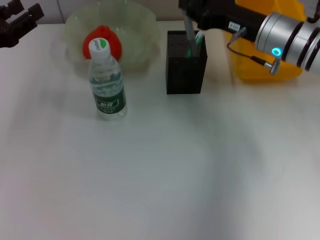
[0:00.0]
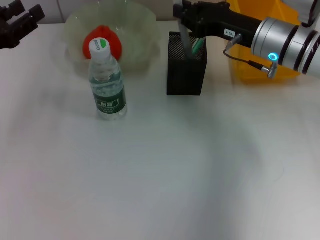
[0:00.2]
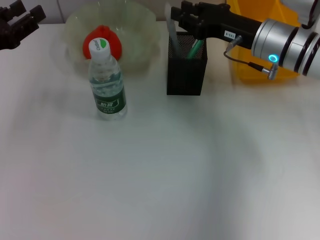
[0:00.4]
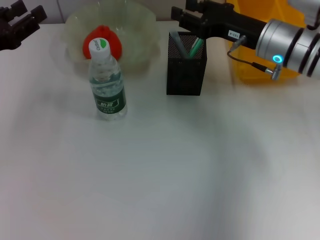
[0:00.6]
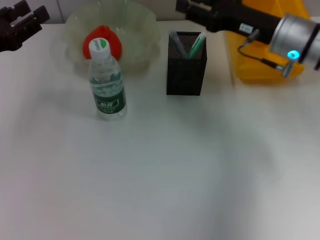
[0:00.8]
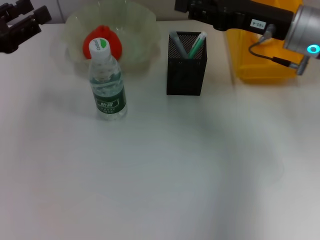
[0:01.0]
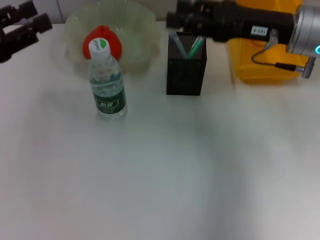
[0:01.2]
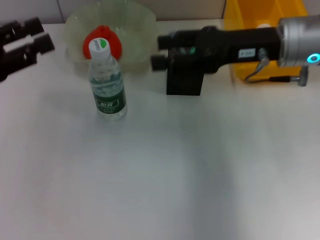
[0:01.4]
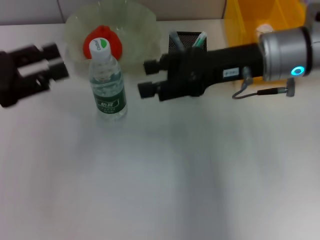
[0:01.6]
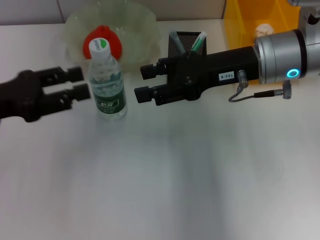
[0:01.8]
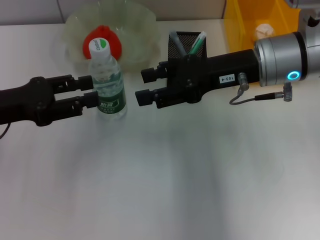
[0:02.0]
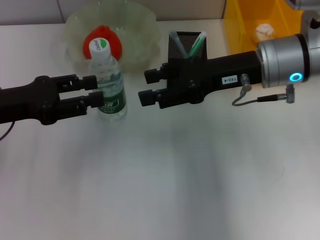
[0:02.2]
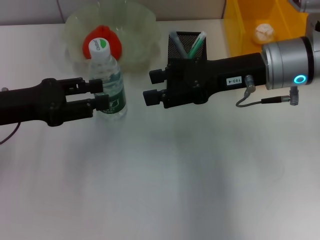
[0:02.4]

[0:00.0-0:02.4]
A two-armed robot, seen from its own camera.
0:00.0 to 0:01.2: The right gripper goes roughly 5 cm upward, and opens its fingers.
0:01.2 to 0:02.4: The left gripper shifts by approximately 5 cm.

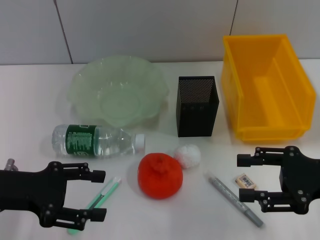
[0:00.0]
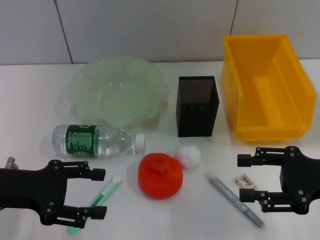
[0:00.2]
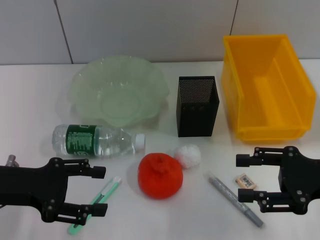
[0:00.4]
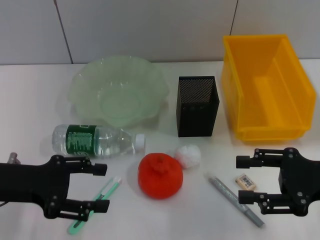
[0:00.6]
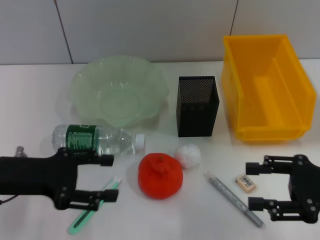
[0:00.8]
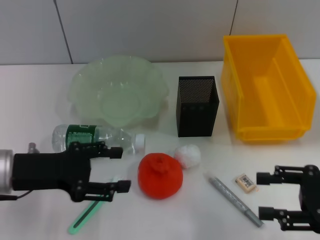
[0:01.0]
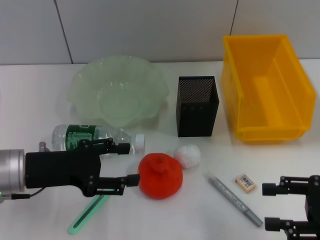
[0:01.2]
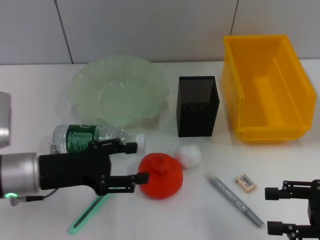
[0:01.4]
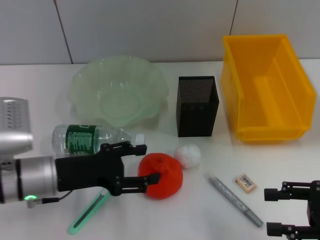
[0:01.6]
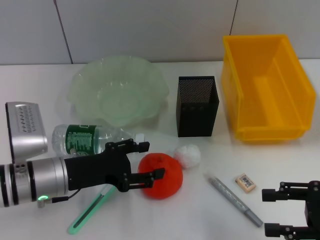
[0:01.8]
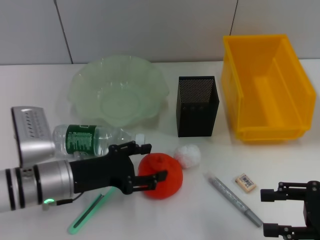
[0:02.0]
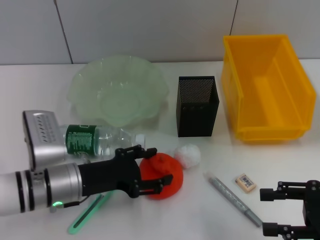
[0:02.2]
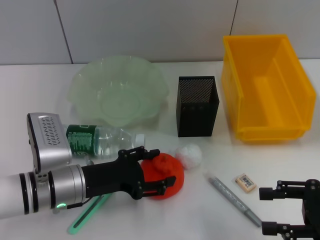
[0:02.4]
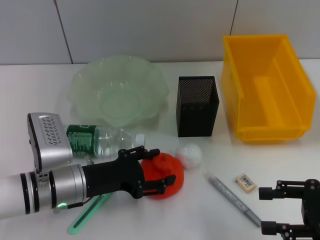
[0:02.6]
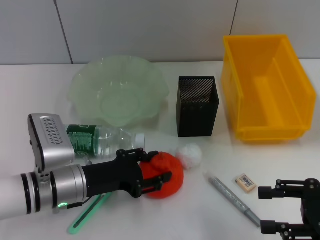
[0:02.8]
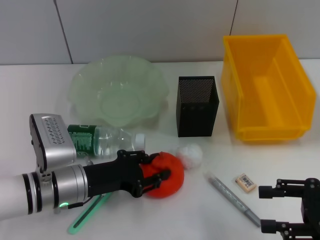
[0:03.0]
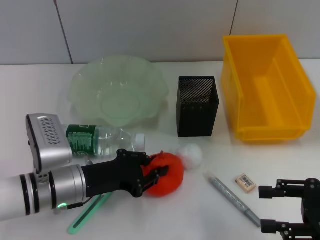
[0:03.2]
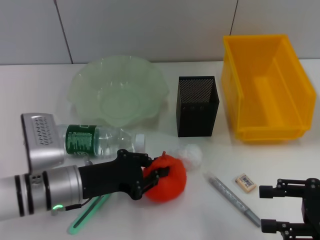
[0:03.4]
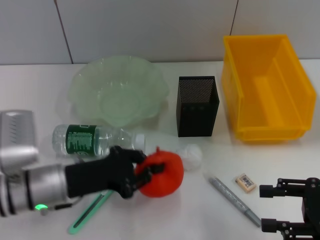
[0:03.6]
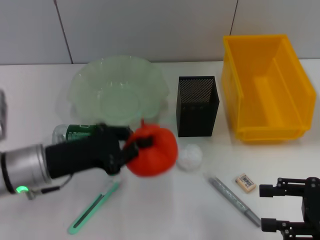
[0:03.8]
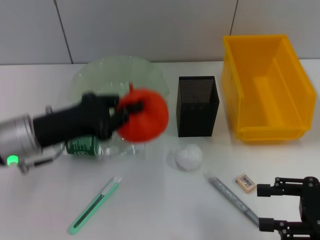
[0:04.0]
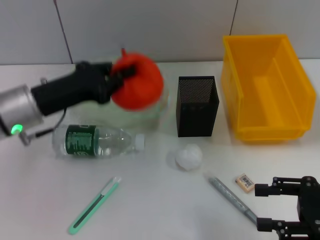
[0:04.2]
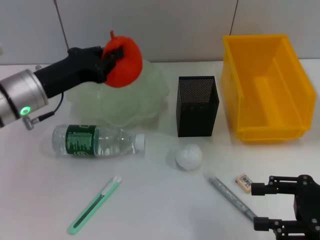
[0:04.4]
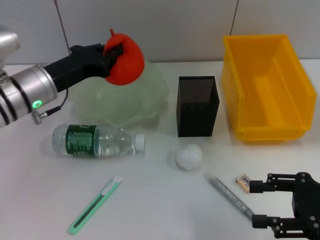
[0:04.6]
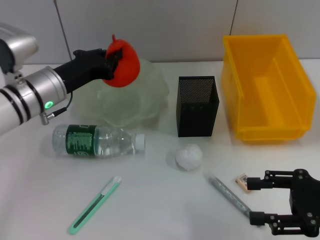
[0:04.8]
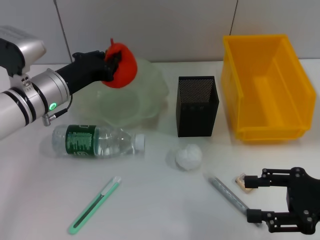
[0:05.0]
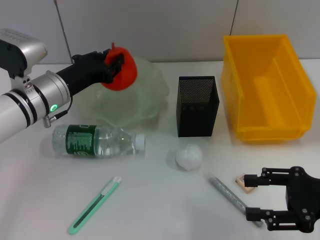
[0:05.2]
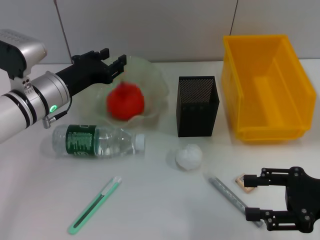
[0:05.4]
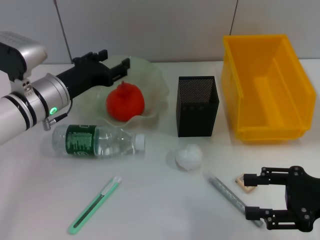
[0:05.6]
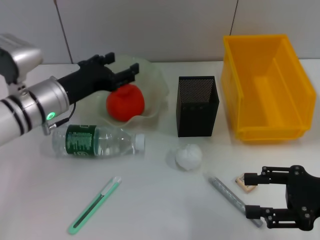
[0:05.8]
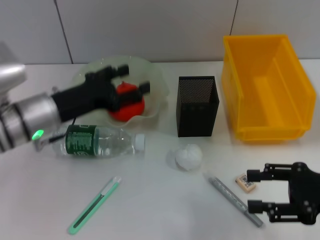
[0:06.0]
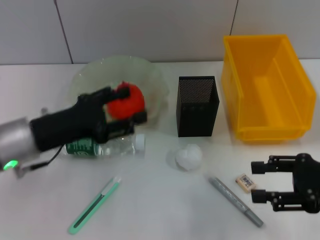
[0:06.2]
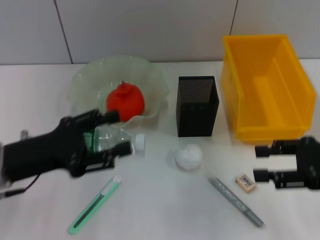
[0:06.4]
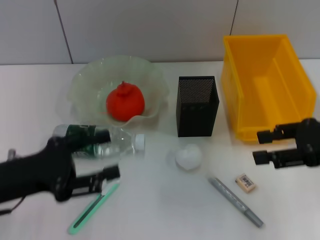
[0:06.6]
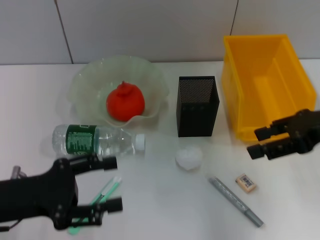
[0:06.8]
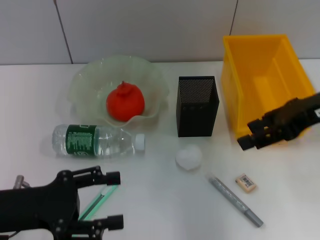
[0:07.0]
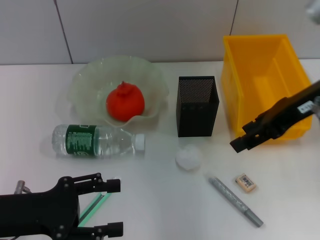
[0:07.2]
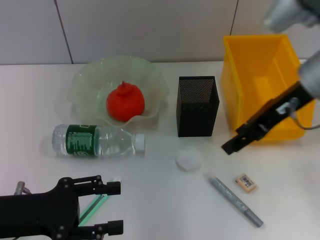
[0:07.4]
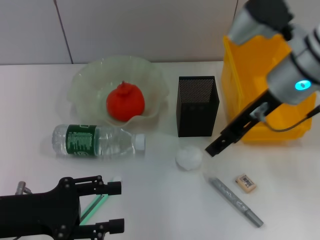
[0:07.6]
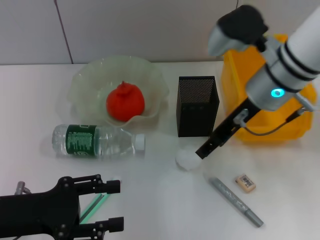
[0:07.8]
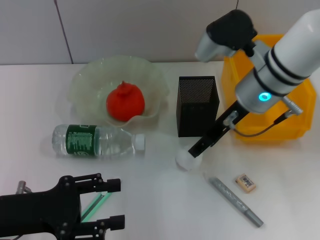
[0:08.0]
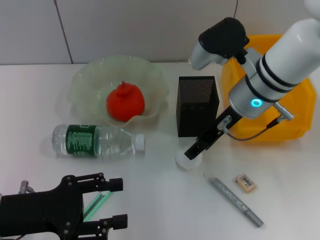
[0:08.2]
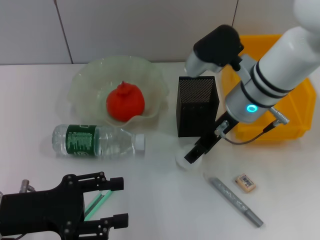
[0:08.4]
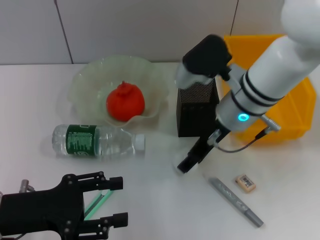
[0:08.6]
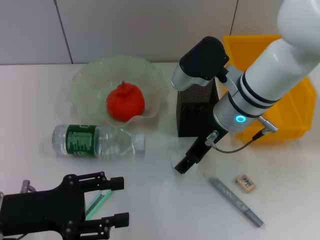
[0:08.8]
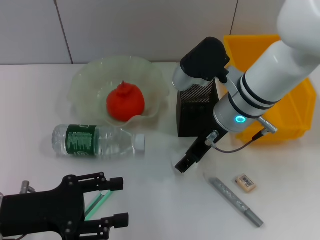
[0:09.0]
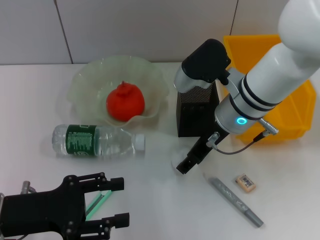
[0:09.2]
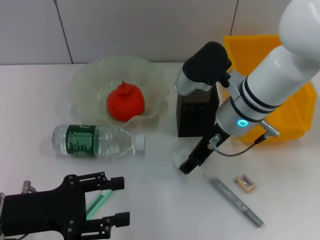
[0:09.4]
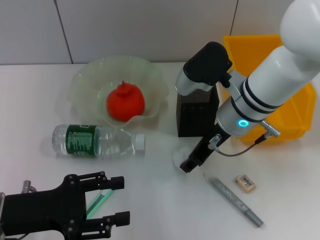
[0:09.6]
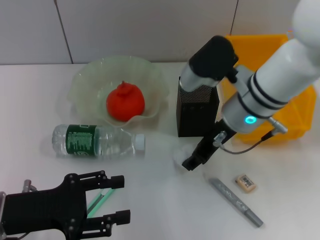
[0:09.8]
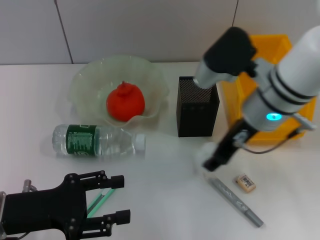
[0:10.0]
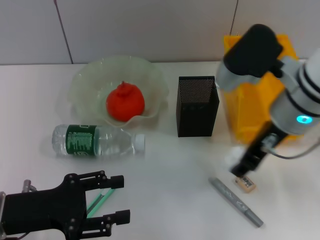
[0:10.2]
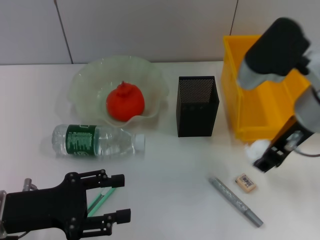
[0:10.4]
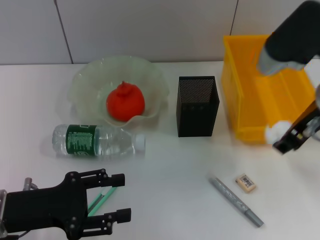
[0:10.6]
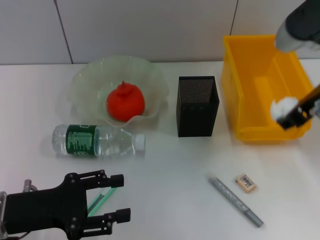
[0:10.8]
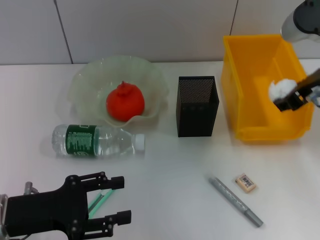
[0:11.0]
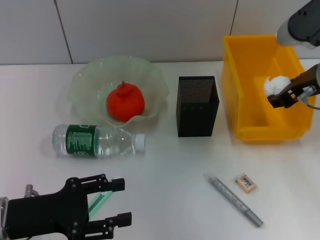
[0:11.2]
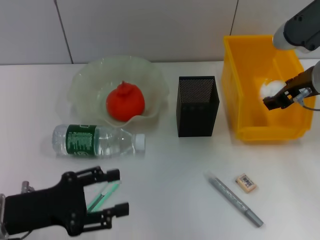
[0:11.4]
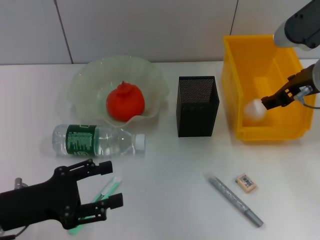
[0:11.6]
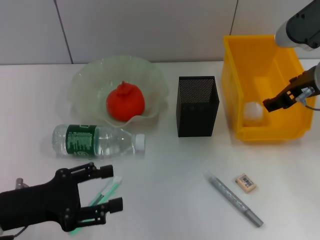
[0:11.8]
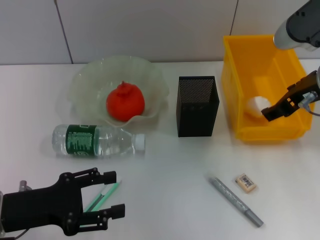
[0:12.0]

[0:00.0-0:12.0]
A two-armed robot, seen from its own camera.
Step, 0:00.0 to 0:03.0: Grab the orange with the left hand.
Step, 0:03.2 to 0:05.4: Place the orange into the fruit bowl with the left hand.
Step, 0:05.6 to 0:08.8: Grab the paper ball with the right hand.
Step, 0:09.0 to 0:11.6: Place the paper ball into the trash can with the right hand.
0:00.0 to 0:01.6: The left gripper shifts some 5 cm to the right. The right gripper moves about 5 cm.
0:01.6 to 0:03.0: The left gripper moves some 5 cm.
0:03.0 to 0:04.4: The left gripper is displaced upward and forward by approximately 10 cm, and closes up.
0:04.4 to 0:06.0: The left gripper opens up.
0:06.0 to 0:07.6: The left gripper moves backward and to the left, approximately 15 cm. The right gripper travels to the left, forward and upward by roughly 20 cm.
0:07.6 to 0:09.0: The right gripper heads downward and to the left, covering about 10 cm.
0:09.0 to 0:10.4: The right gripper is displaced upward, to the right and backward by about 10 cm, and closes its fingers.
0:10.4 to 0:12.0: The right gripper moves roughly 5 cm, and opens.

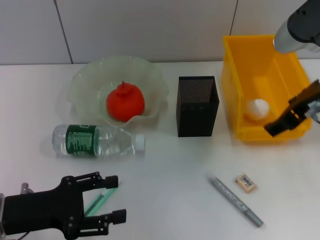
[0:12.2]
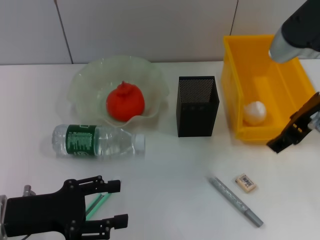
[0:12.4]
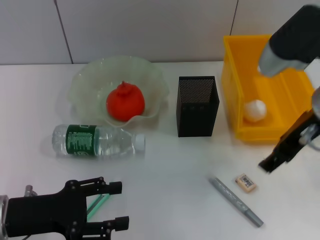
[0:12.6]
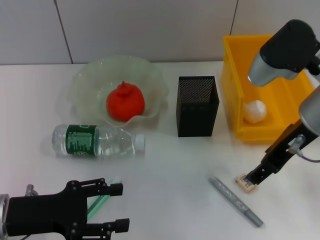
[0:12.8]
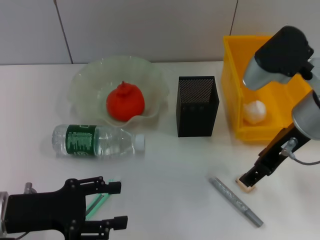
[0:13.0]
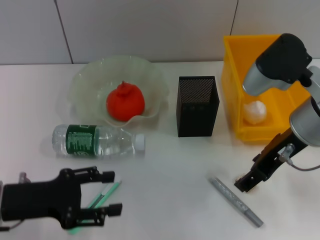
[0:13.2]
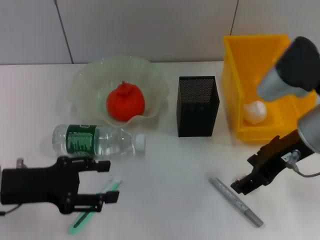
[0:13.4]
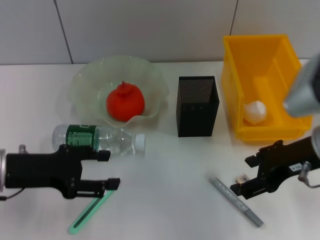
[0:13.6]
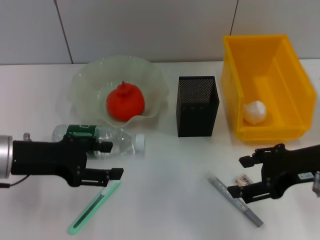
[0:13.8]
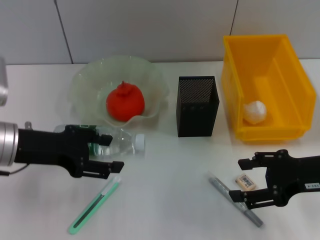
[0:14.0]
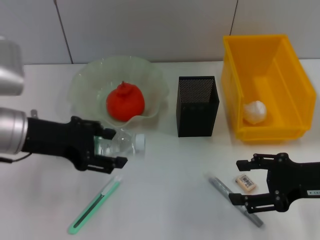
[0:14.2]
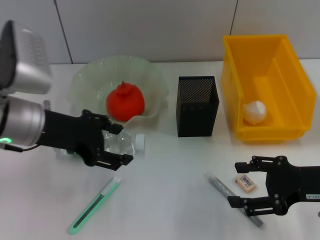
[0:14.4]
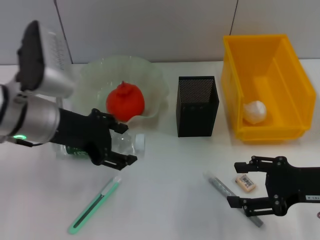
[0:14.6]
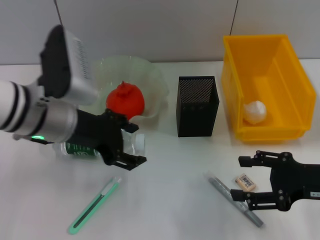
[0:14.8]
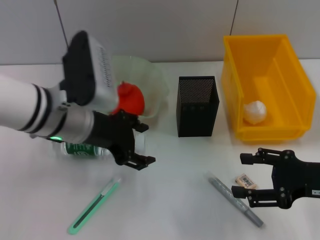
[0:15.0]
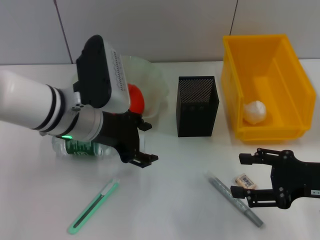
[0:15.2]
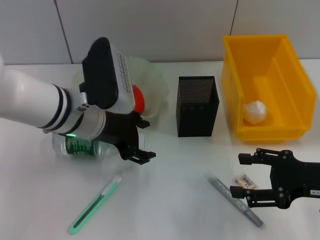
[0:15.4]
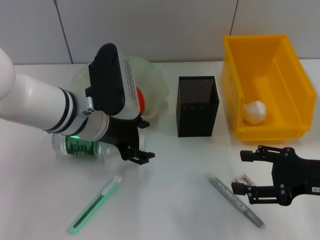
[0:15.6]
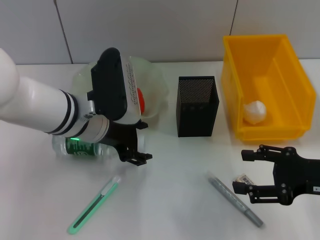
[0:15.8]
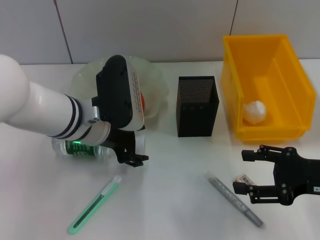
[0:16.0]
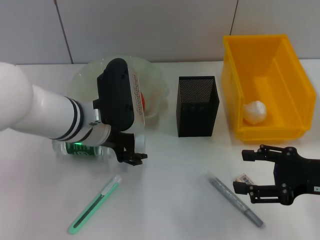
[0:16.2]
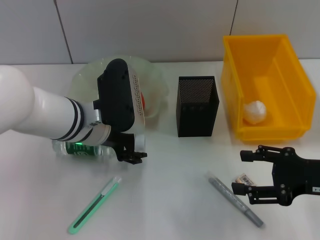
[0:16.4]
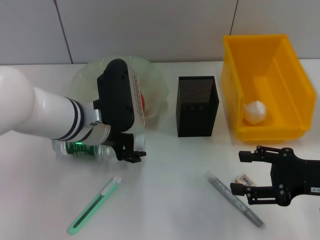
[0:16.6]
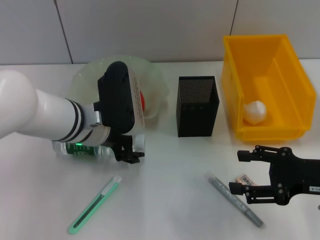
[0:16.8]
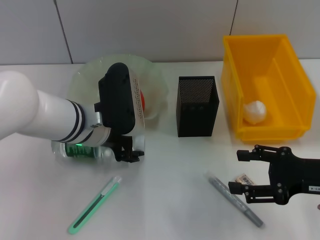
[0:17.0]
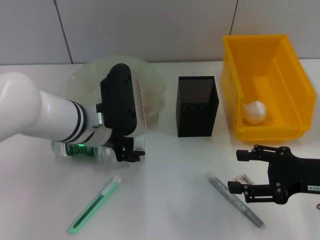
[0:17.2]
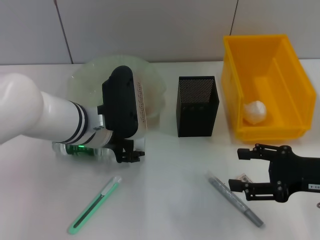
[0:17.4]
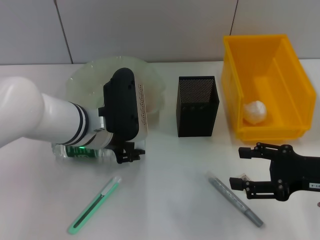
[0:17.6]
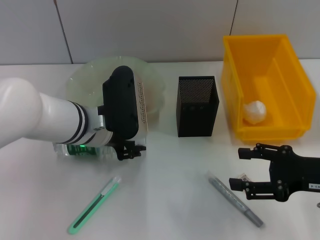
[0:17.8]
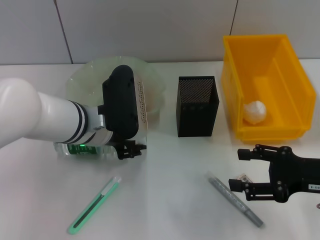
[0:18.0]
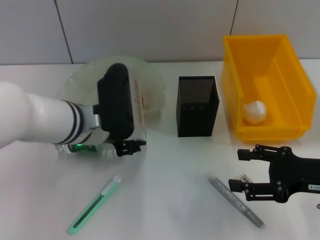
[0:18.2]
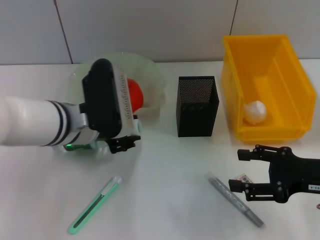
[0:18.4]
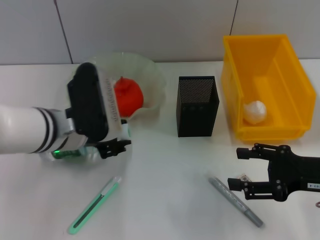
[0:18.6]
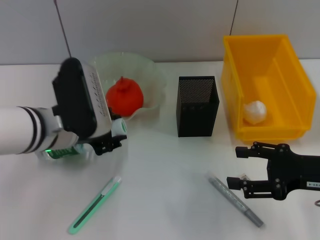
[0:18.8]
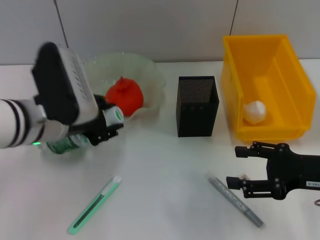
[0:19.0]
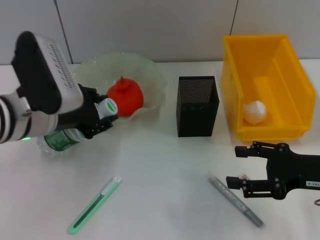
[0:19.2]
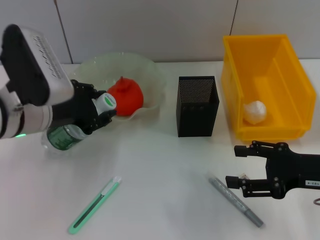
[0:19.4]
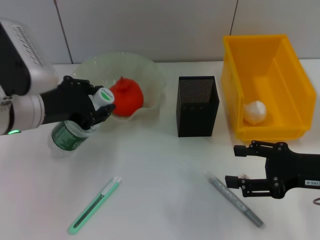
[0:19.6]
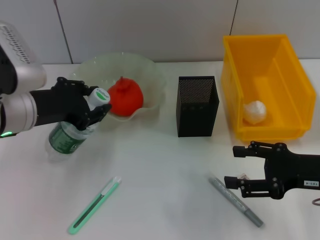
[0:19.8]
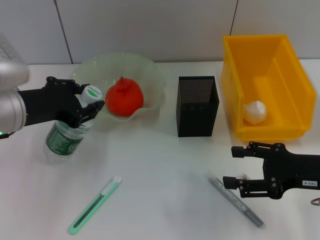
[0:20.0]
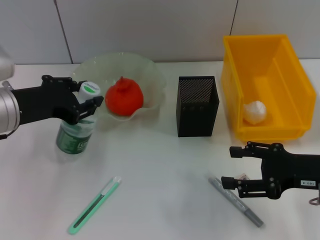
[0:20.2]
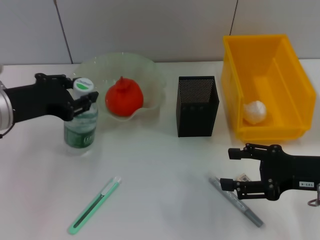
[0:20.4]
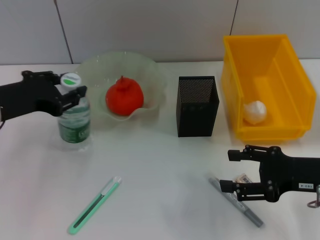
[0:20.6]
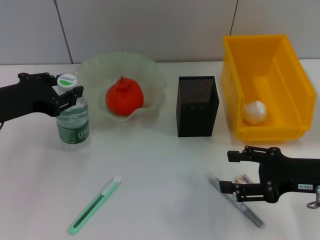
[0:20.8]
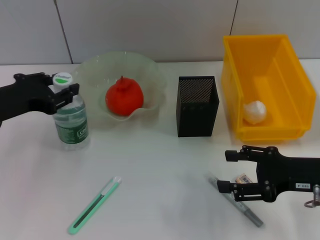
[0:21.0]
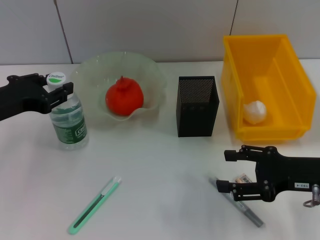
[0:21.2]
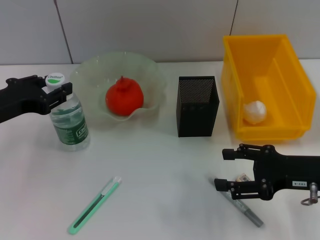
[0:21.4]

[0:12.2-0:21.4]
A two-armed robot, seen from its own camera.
Step, 0:12.2 to 0:18.0: Grab the water bottle with the left hand.
0:12.2 to 0:13.8: The left gripper heads forward and upward, covering some 10 cm, while the right gripper goes approximately 10 cm downward.
0:13.8 to 0:15.2: The right gripper heads downward, covering about 5 cm. The left gripper is displaced to the right by approximately 10 cm.
0:15.2 to 0:16.8: The grippers move only a little.
0:16.8 to 0:18.4: The left gripper closes its fingers.
0:18.4 to 0:19.8: The left gripper moves to the left, about 10 cm.
0:19.8 to 0:21.4: The left gripper shifts approximately 5 cm to the left.
